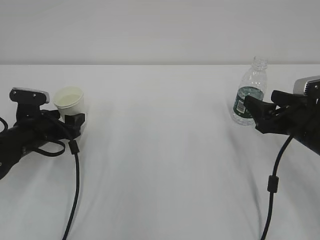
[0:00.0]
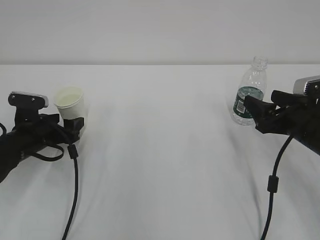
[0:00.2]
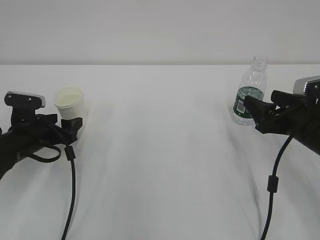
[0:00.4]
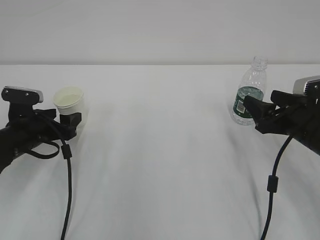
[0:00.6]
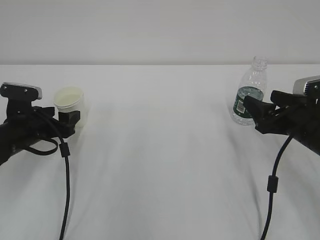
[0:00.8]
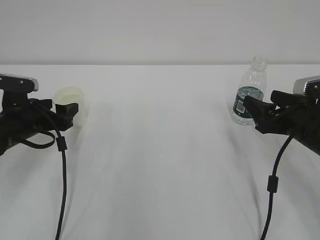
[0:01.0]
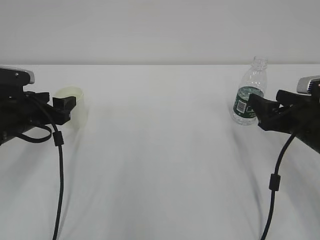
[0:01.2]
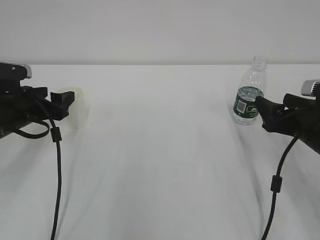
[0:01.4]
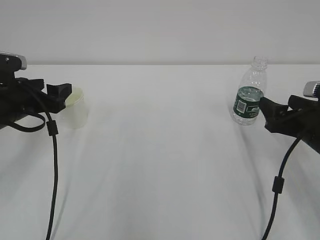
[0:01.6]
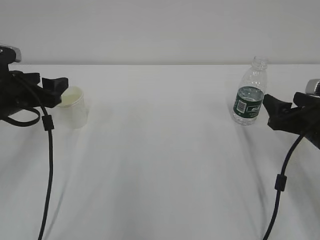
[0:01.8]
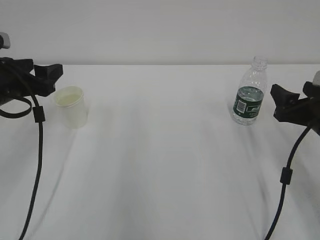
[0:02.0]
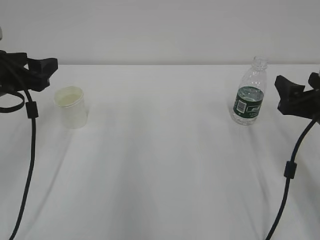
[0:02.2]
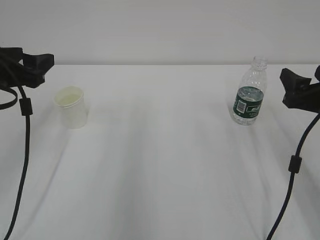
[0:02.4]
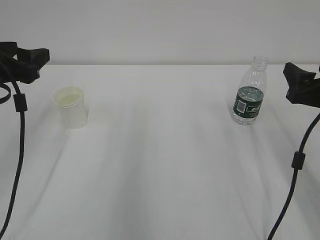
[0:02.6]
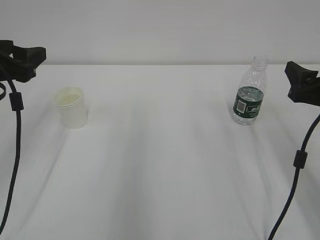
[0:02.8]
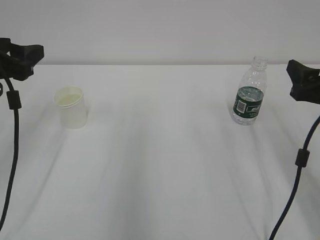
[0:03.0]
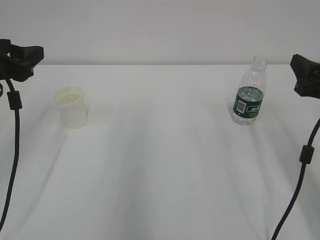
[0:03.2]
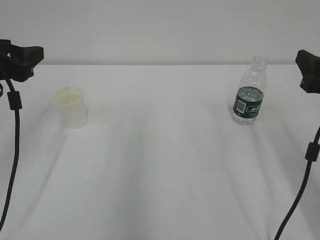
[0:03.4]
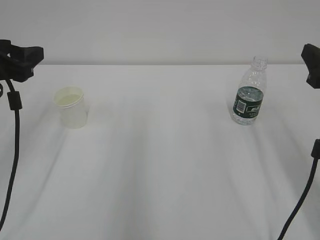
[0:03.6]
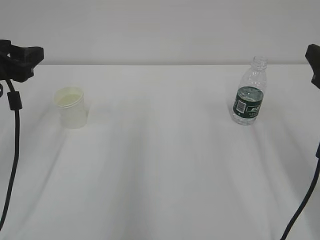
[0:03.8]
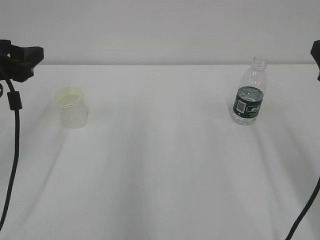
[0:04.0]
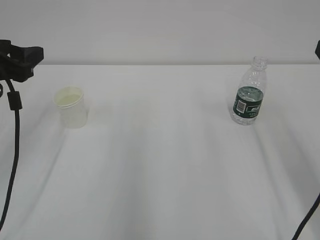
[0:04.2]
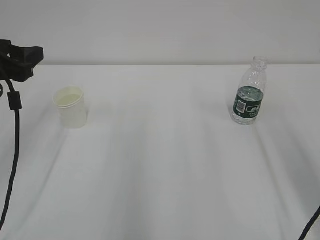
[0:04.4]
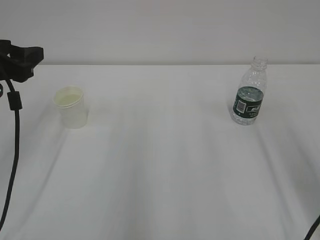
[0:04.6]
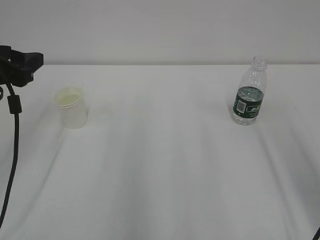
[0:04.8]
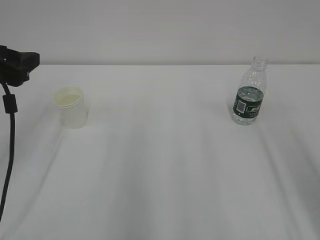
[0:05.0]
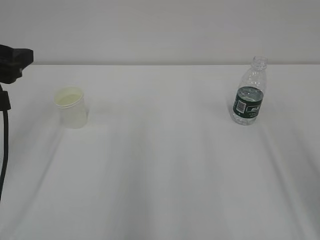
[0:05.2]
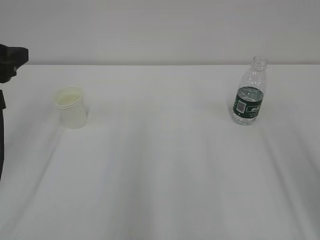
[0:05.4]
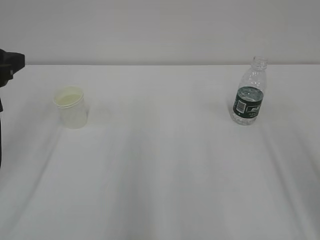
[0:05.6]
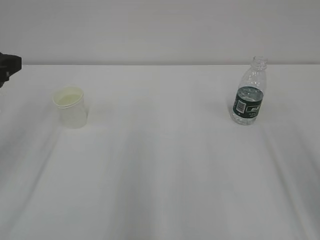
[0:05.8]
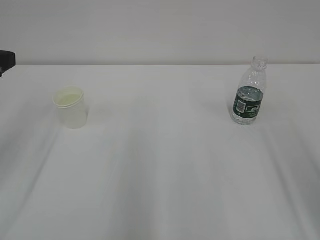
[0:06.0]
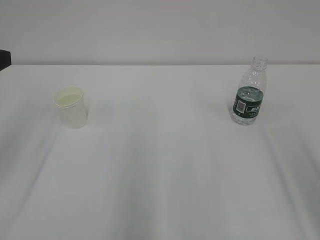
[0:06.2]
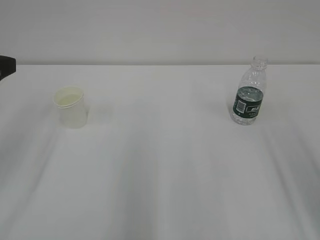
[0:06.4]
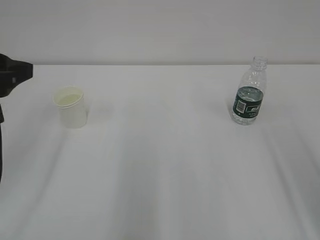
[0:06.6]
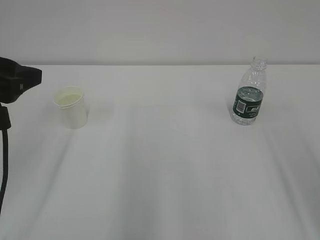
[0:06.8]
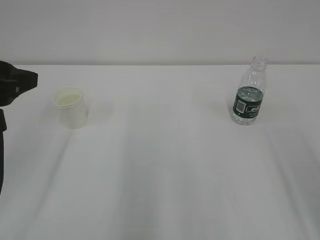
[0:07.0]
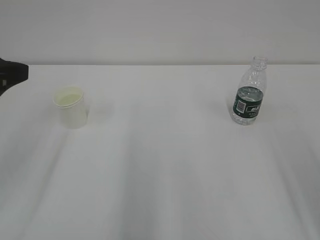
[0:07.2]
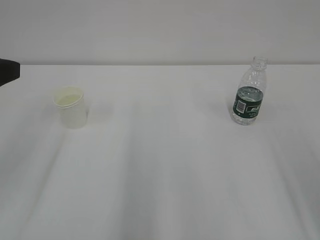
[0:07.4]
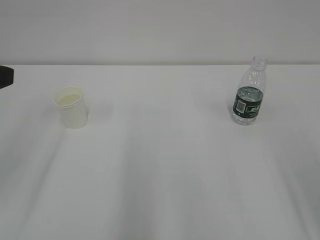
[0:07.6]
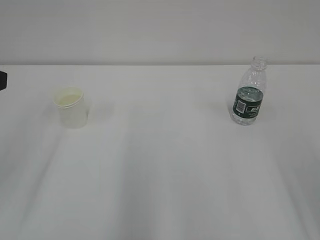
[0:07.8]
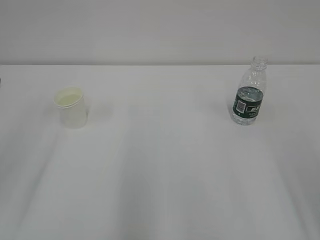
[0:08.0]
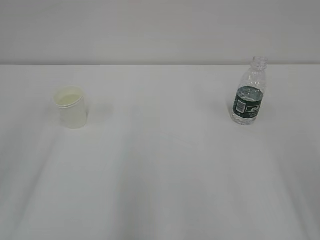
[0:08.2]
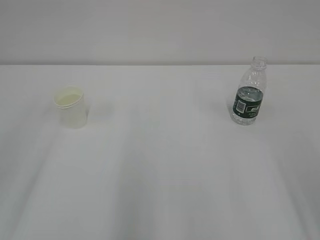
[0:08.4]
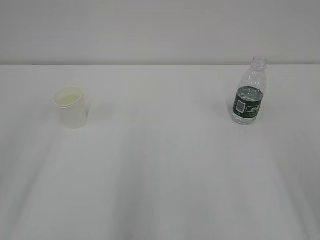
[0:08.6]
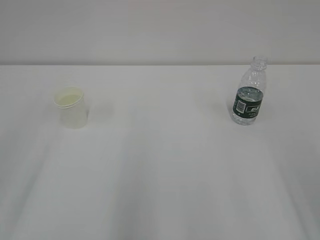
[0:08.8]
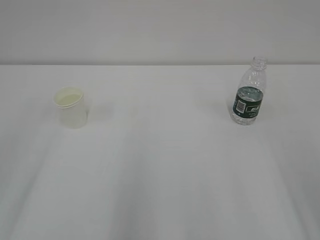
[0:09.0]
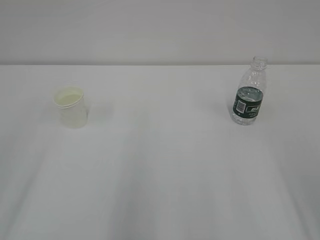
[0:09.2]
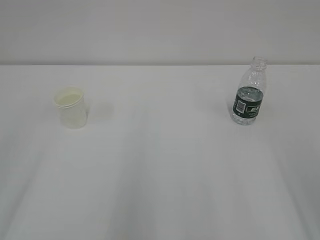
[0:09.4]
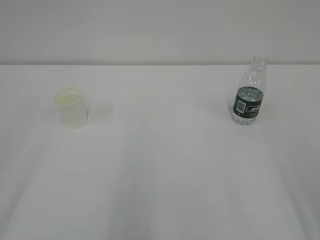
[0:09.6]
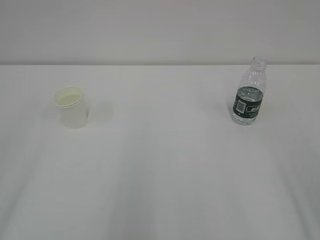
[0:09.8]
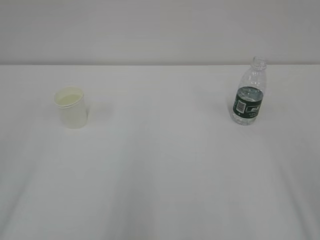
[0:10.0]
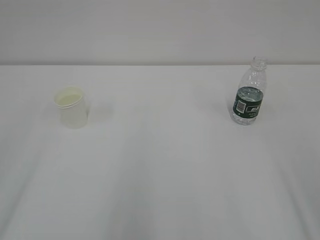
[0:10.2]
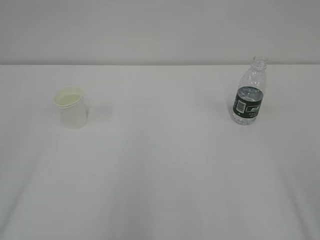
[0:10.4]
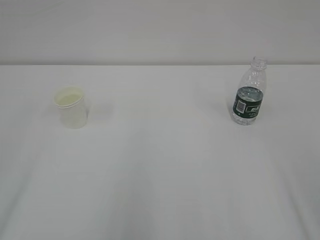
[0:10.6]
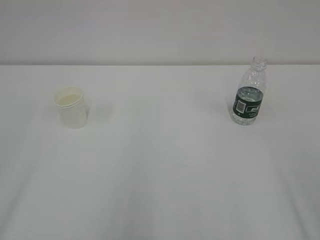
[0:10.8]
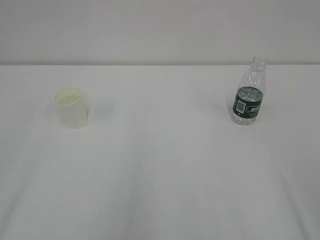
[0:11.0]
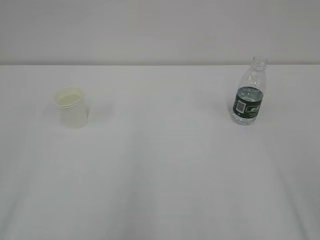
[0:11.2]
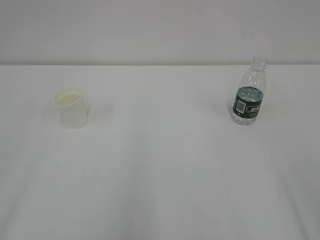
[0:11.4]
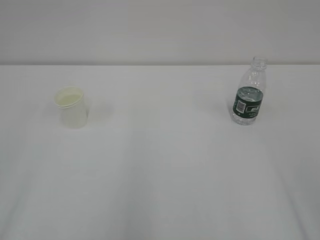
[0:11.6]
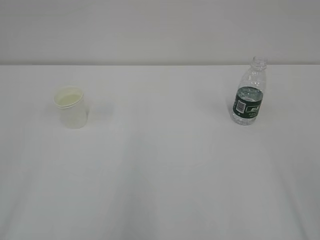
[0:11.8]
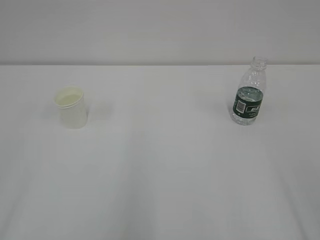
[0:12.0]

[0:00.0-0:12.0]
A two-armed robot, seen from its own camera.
0:00.0 to 0:01.6: The left gripper travels upward by roughly 10 cm.
0:01.6 to 0:03.0: The grippers both shift upward by some 10 cm.
0:03.0 to 0:04.4: The right gripper heads upward and backward, covering approximately 10 cm.
0:04.4 to 0:06.0: The left gripper shifts by about 5 cm.

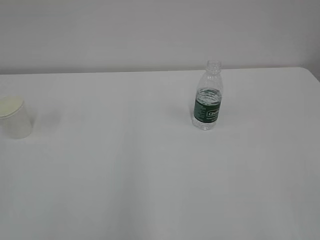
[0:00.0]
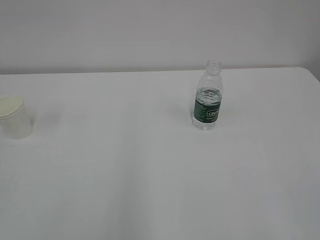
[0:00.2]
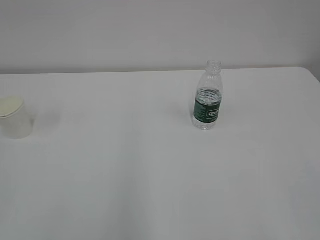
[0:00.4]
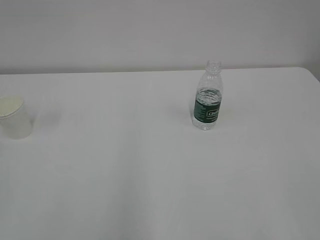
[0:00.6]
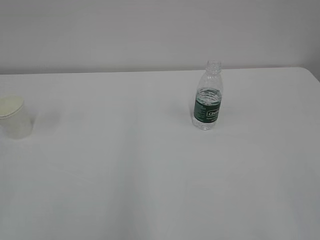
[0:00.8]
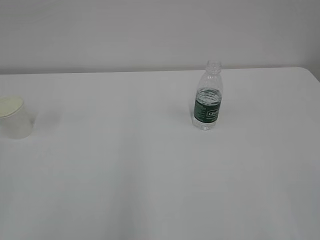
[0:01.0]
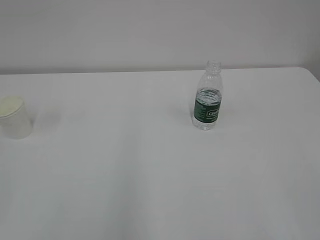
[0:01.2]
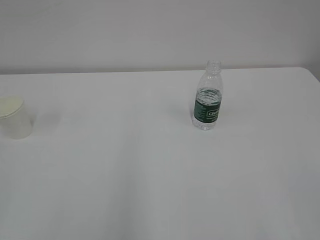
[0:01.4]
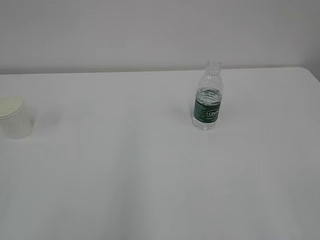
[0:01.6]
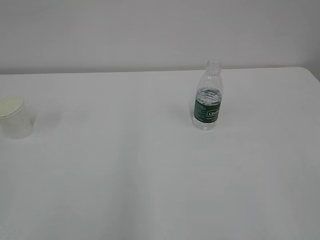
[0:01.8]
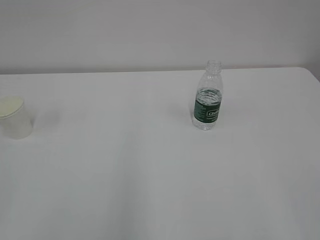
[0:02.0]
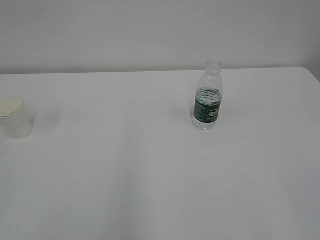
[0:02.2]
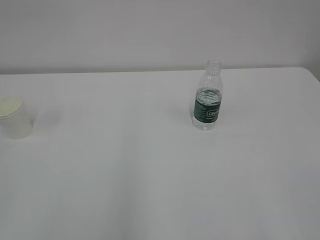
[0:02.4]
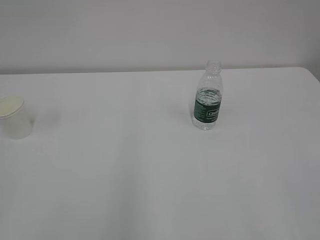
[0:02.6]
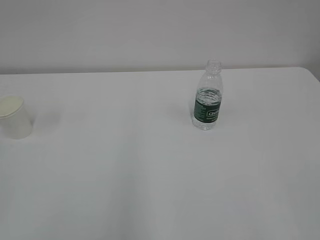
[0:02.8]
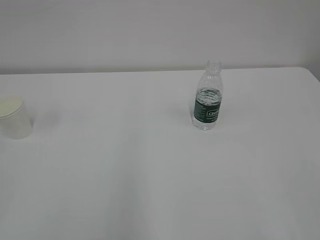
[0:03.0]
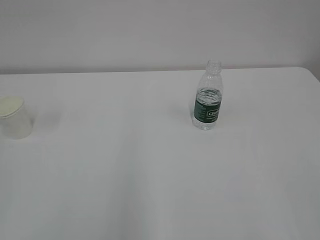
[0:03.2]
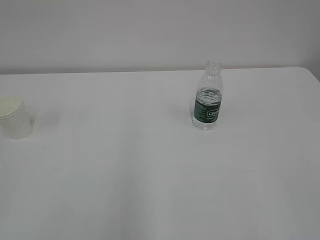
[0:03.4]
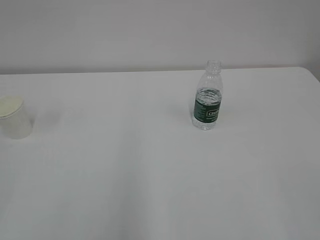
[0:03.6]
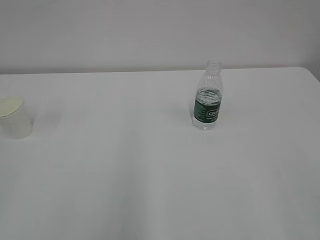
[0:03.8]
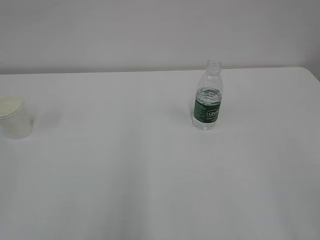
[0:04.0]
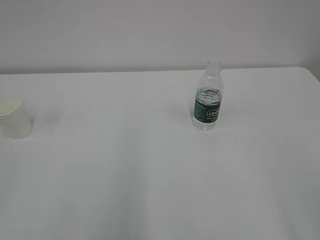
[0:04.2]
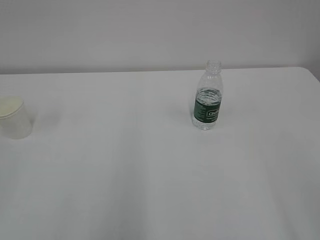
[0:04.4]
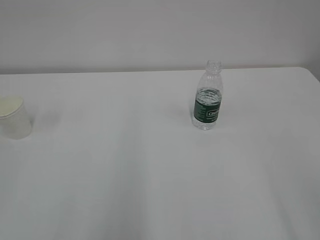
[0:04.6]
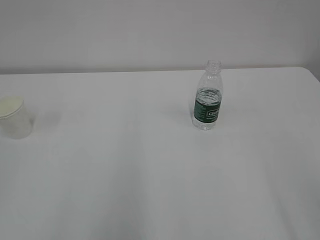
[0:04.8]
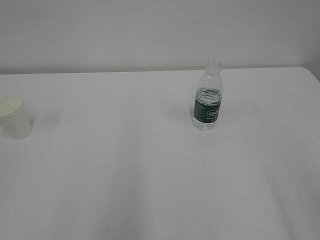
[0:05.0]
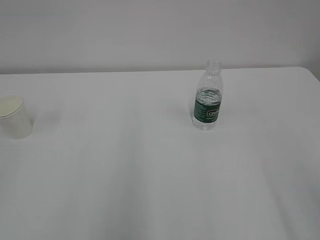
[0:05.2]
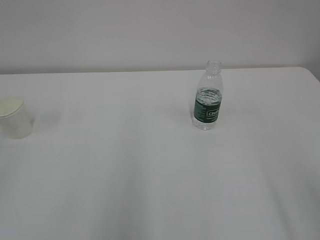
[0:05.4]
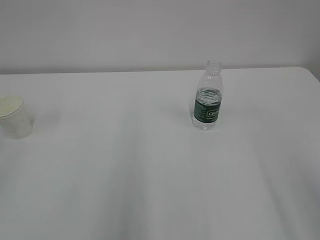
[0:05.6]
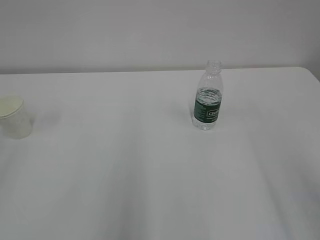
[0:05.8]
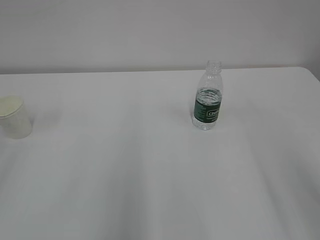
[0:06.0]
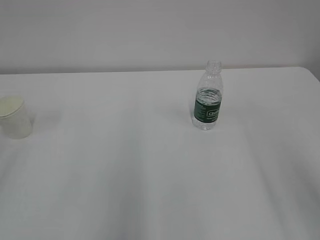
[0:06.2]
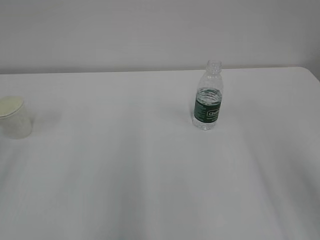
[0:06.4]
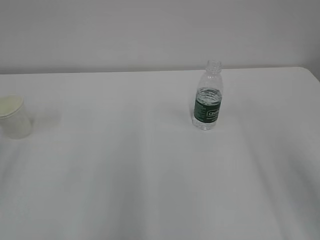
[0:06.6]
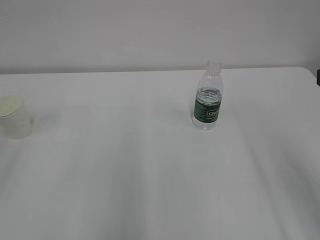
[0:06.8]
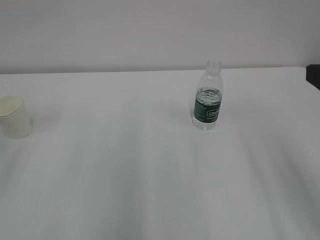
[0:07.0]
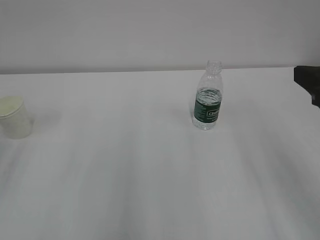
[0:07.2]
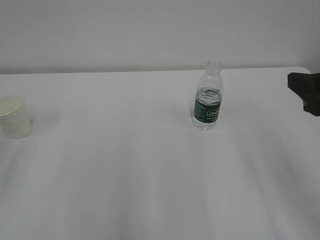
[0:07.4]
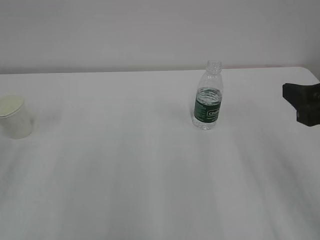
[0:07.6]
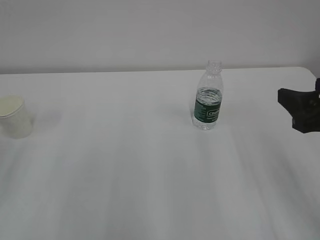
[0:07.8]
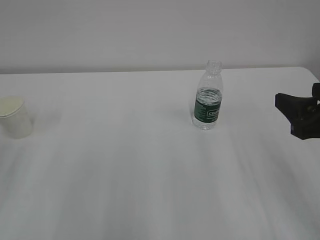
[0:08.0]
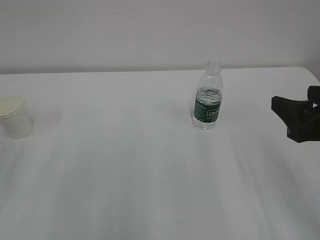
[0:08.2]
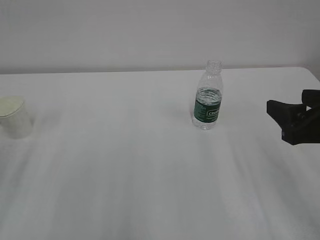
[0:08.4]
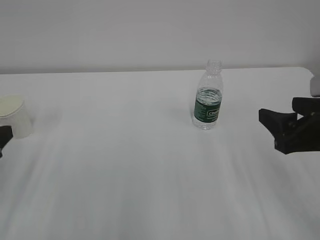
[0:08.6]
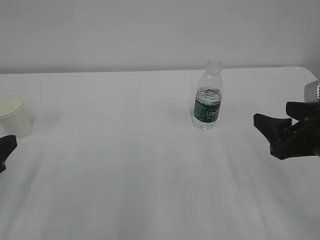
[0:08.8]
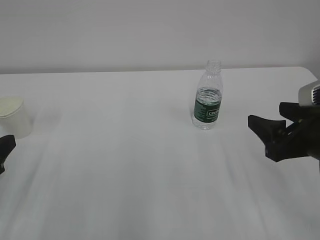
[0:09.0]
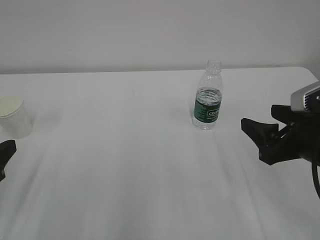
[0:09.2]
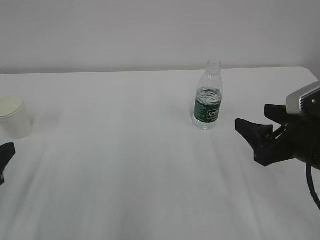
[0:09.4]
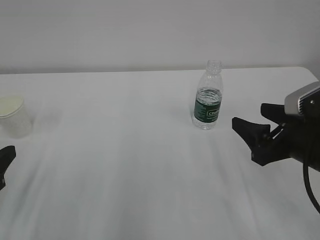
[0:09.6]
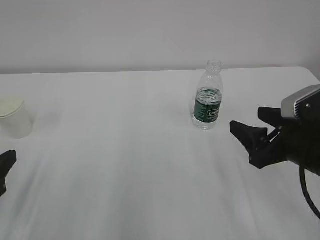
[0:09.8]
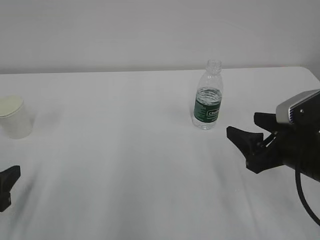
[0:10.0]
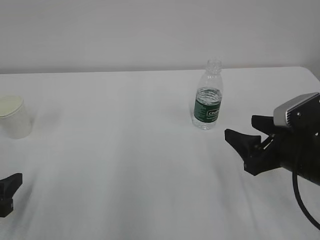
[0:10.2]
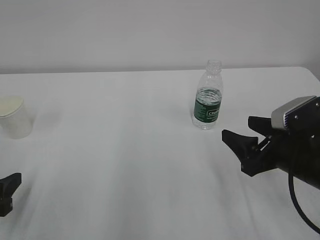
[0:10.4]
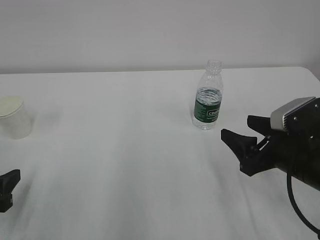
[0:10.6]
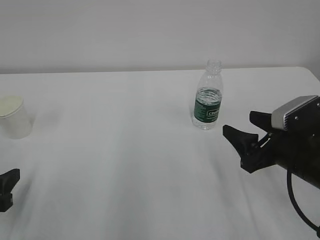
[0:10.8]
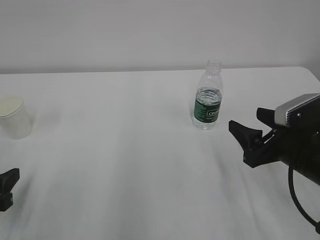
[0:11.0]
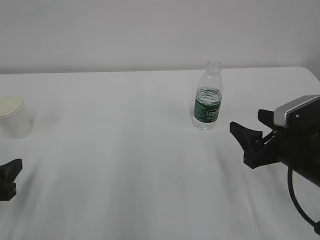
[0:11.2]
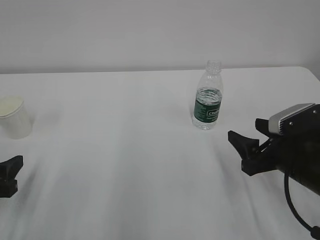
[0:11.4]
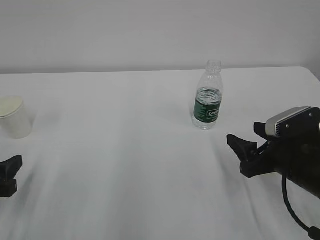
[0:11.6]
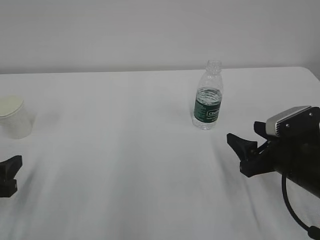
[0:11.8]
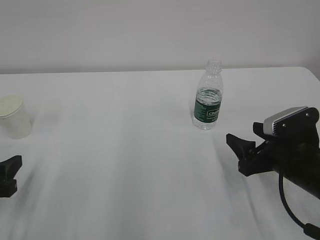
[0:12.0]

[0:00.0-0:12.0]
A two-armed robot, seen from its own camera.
0:01.6 to 0:03.0: Both grippers stay put.
0:06.0 to 0:07.6: The right gripper is displaced forward and downward by some 10 cm.
0:07.6 to 0:09.0: The right gripper travels downward by some 5 cm.
0:09.0 to 0:10.4: The grippers both shift downward by some 5 cm.
0:10.4 to 0:12.0: There are only small adjustments of the grippers.
